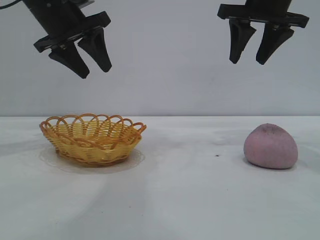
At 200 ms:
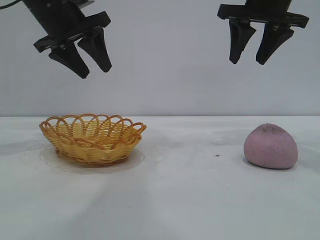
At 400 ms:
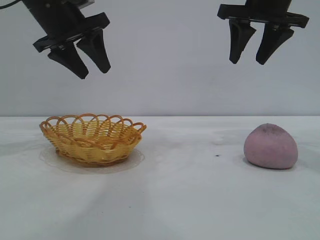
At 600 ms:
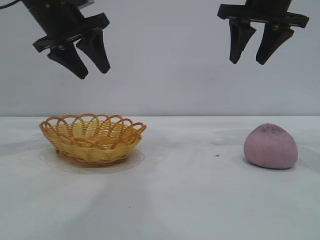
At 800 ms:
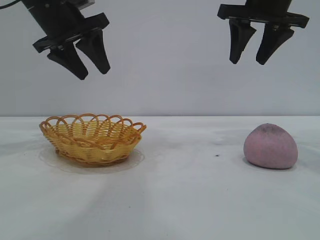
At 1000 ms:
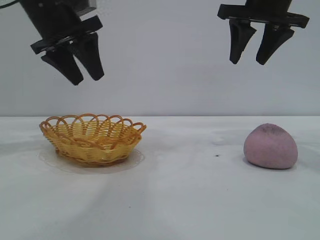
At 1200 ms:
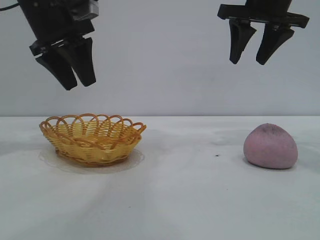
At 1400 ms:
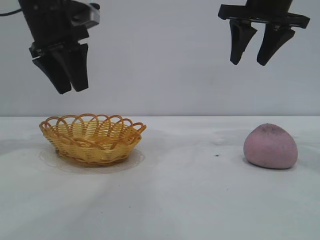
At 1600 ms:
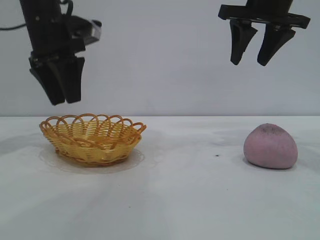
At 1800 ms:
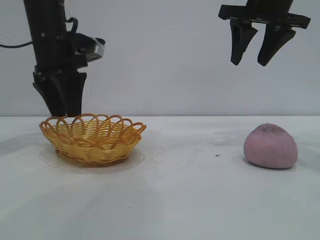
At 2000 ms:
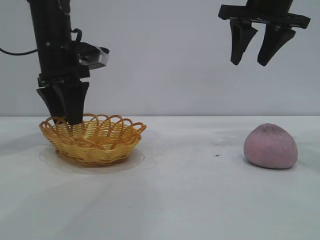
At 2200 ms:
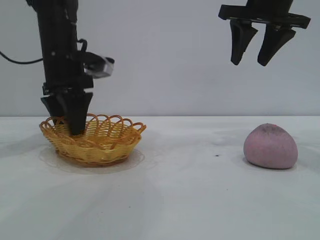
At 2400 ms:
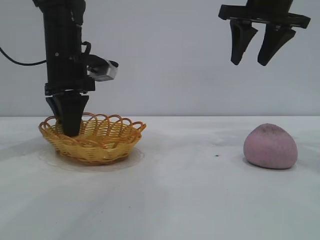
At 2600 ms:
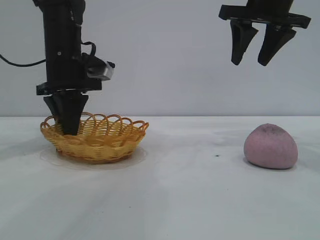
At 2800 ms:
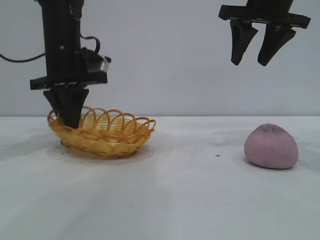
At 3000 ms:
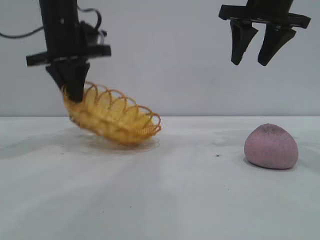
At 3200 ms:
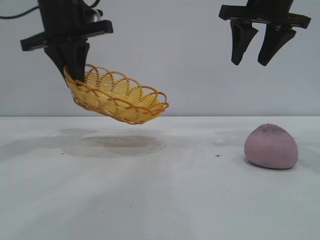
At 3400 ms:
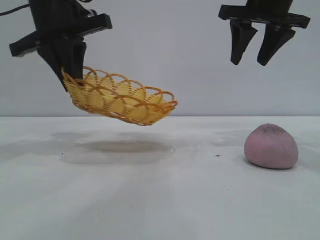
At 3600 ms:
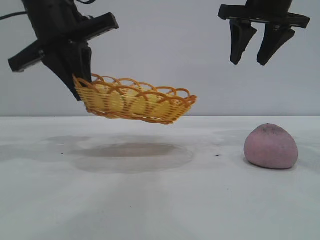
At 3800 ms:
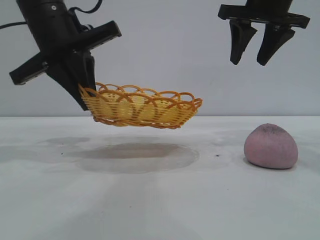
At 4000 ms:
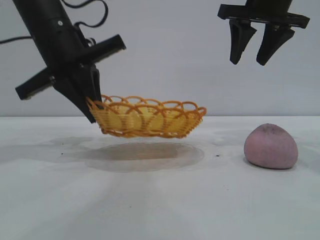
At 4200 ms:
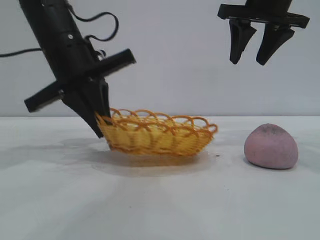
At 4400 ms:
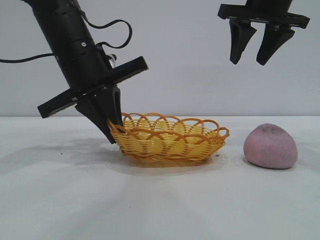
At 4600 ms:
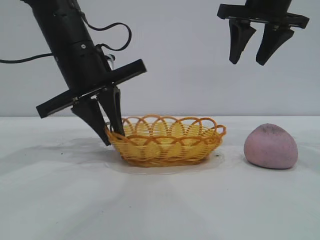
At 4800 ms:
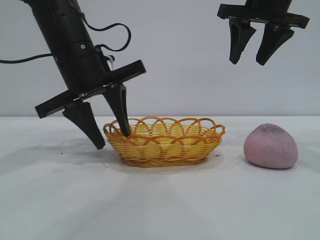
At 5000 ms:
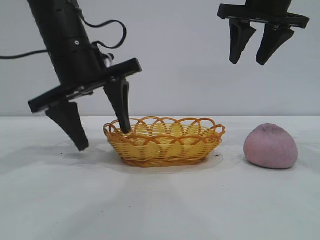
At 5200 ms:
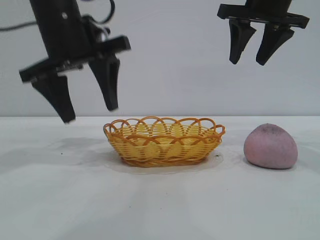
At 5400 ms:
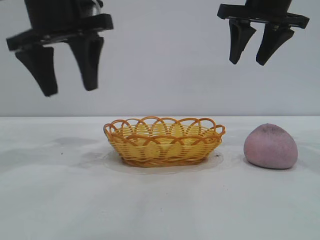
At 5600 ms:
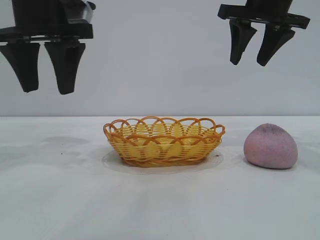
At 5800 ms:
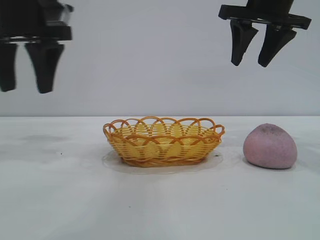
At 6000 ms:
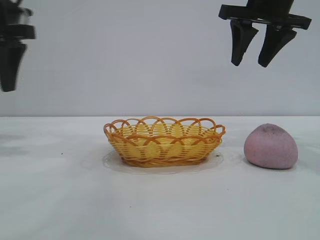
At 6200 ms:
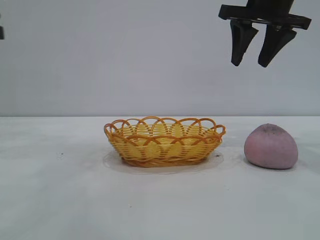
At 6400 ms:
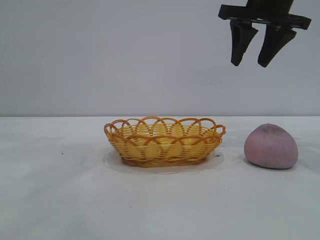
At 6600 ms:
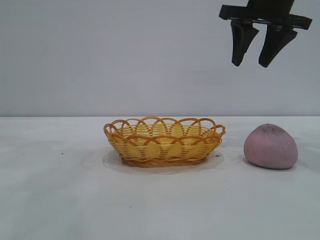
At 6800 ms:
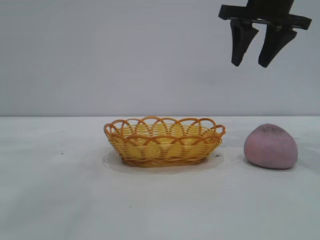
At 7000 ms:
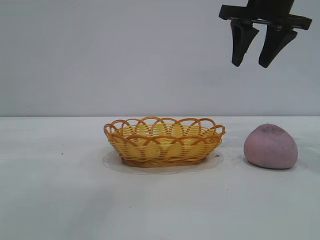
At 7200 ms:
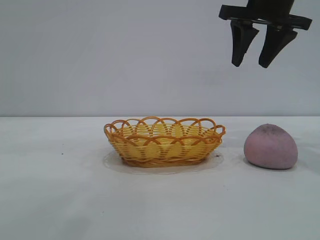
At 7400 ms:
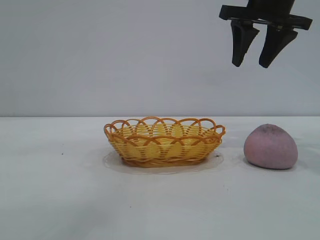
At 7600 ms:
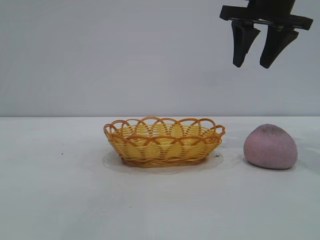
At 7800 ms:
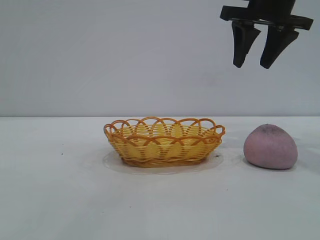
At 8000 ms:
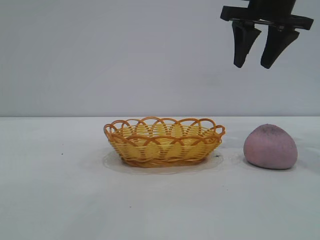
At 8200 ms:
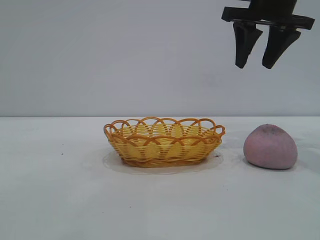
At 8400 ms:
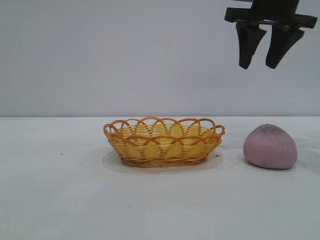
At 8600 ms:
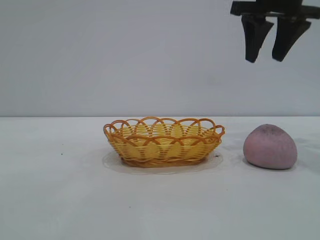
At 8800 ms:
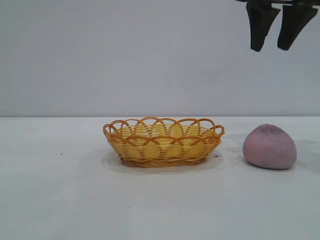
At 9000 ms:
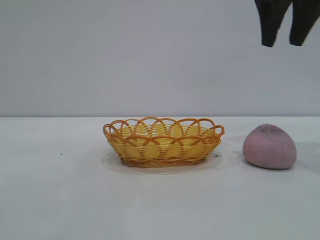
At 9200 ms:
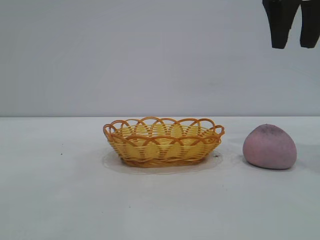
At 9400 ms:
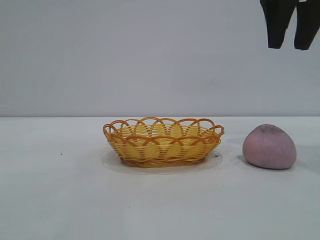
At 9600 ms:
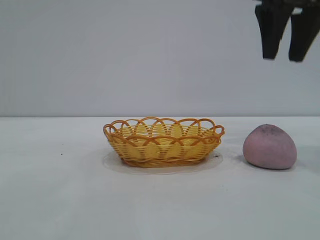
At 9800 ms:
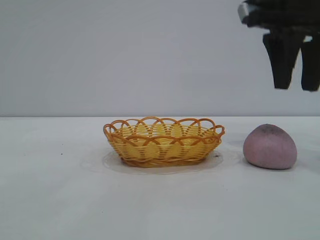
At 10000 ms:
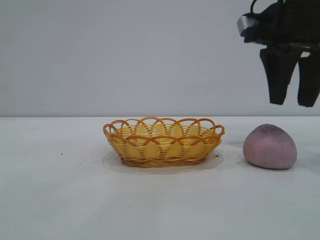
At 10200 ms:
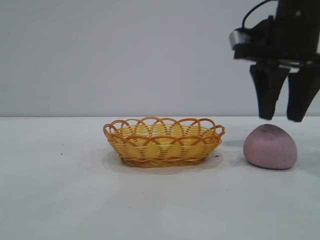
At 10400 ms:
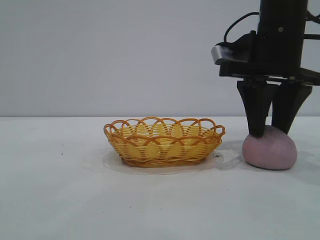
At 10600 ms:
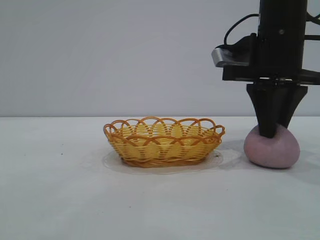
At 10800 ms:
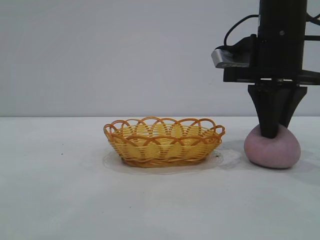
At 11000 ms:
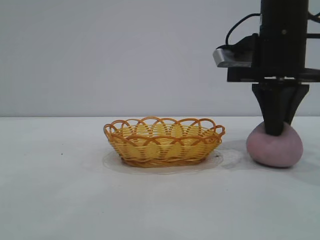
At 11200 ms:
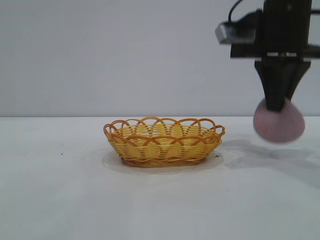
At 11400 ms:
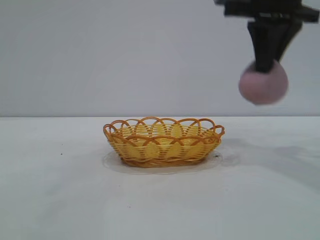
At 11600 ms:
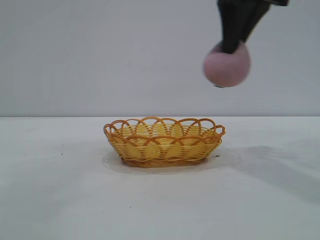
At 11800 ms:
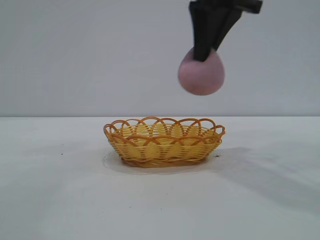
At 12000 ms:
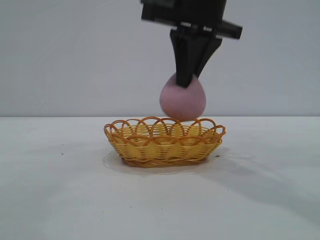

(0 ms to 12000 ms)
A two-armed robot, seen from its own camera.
Task of the whole recording: pick up the peach and put it into the basket.
Step, 0 ms - 5400 ms: Move the basket to the center of view.
Step, 5800 ms - 11200 ms: Pick up the peach.

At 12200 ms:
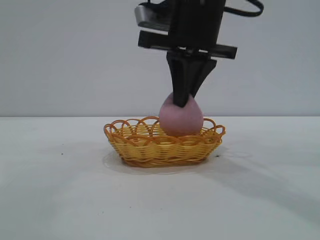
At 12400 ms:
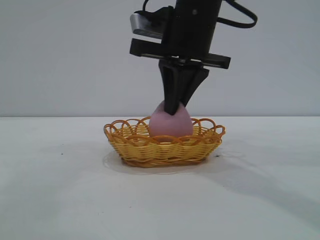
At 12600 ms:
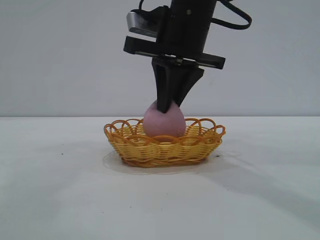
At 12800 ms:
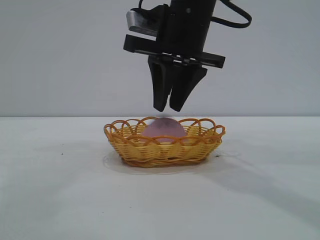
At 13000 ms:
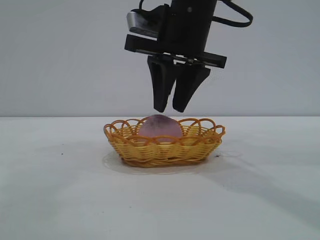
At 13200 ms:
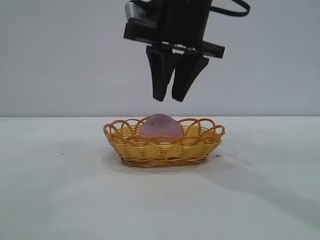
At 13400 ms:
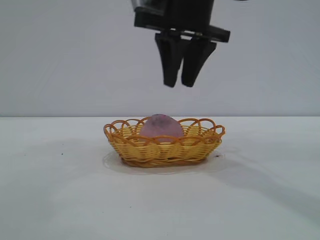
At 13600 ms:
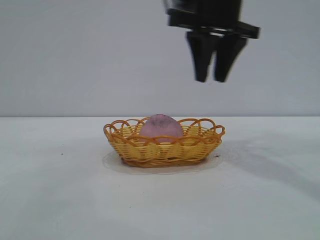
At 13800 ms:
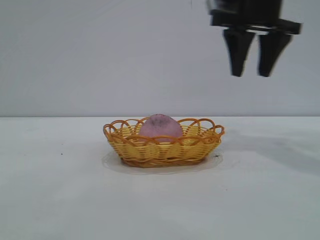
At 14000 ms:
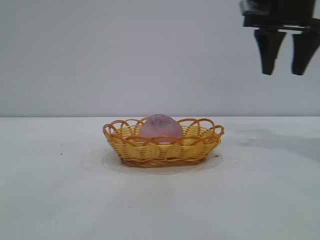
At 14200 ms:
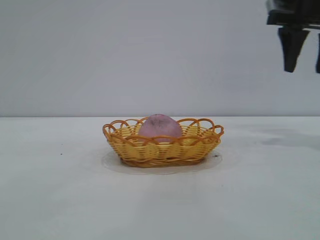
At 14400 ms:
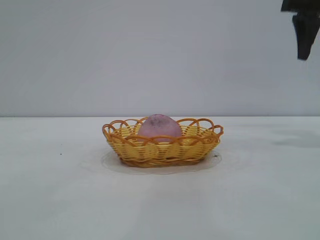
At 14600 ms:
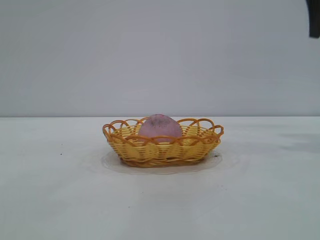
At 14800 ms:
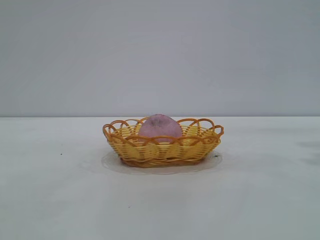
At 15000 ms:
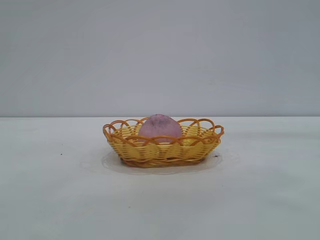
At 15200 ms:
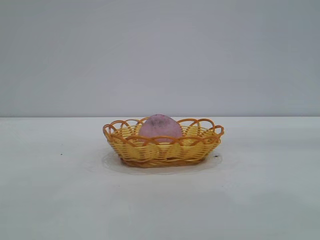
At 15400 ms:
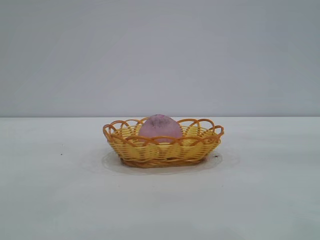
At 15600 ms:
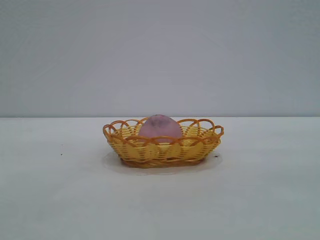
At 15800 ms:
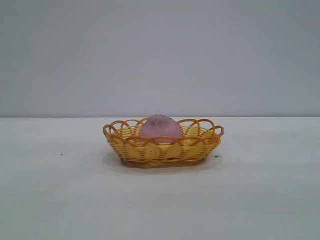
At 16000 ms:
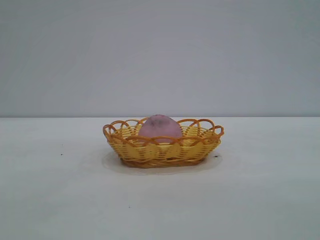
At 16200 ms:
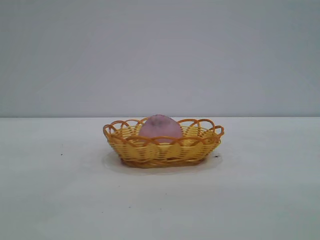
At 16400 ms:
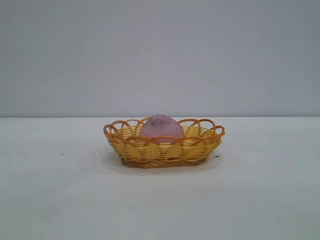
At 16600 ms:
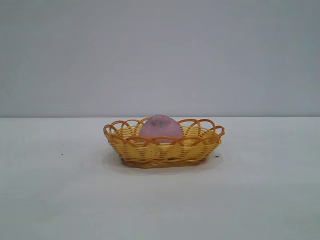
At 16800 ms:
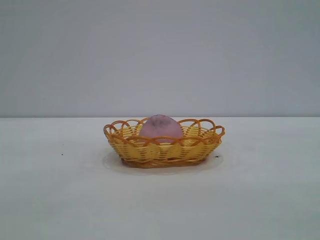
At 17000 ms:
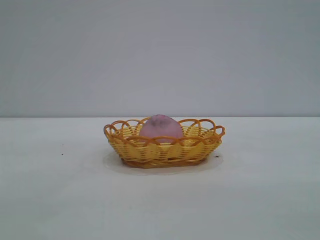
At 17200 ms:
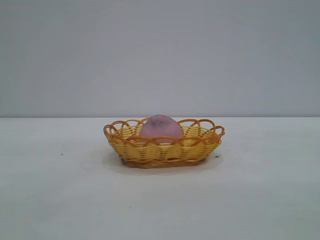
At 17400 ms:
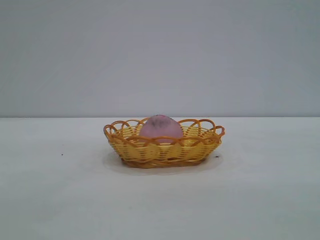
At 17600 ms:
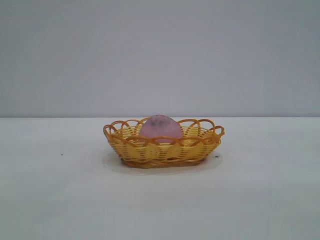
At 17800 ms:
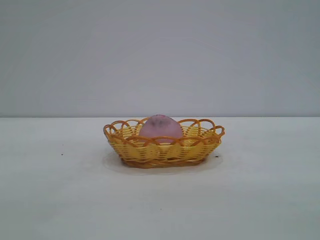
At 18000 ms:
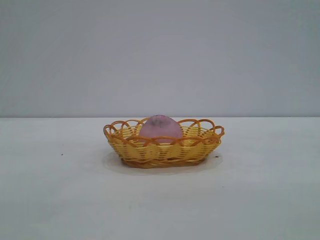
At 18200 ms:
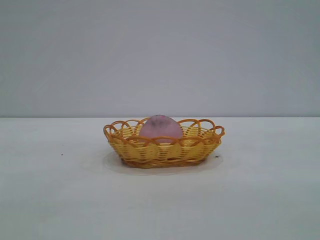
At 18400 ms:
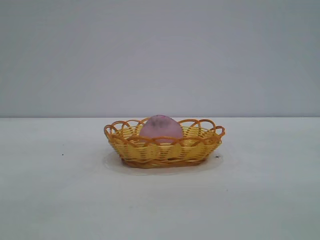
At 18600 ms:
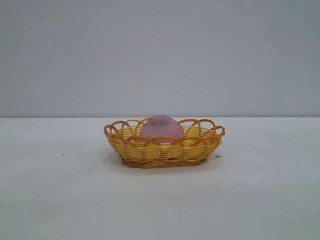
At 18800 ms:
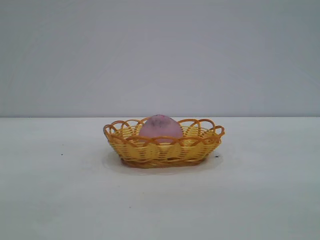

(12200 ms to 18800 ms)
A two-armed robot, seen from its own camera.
Task of the whole recording: pick up the peach and put it into the basket.
Step, 12200 ms - 13400 ms: place the peach into the basket.
